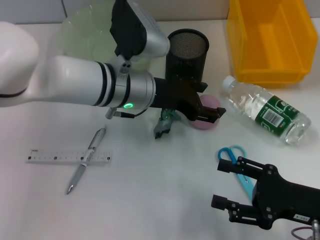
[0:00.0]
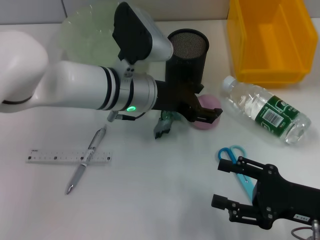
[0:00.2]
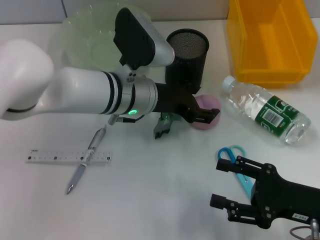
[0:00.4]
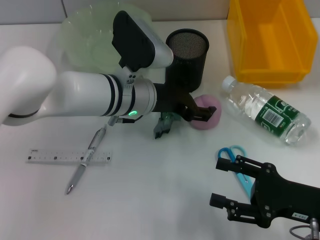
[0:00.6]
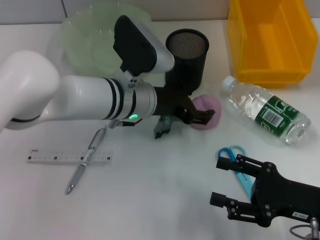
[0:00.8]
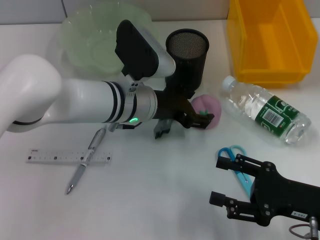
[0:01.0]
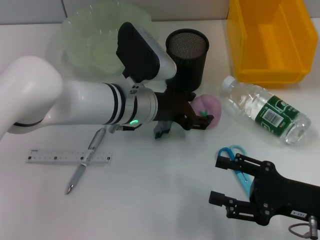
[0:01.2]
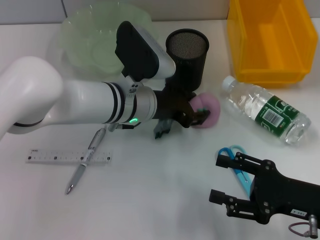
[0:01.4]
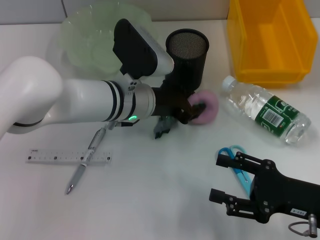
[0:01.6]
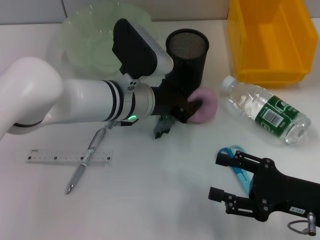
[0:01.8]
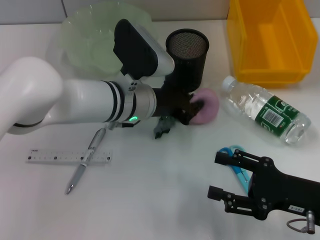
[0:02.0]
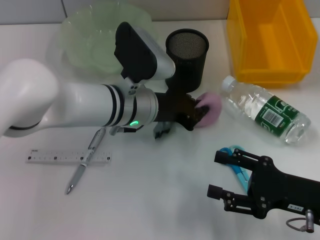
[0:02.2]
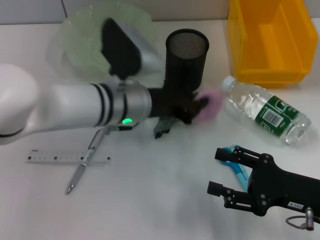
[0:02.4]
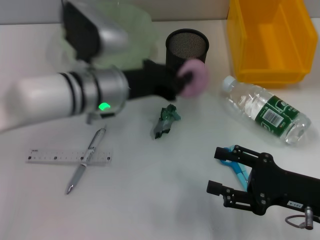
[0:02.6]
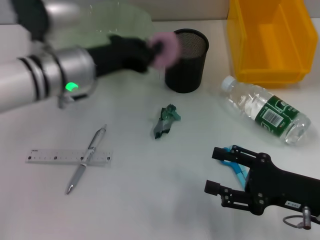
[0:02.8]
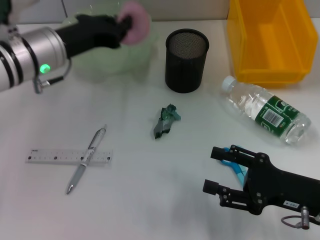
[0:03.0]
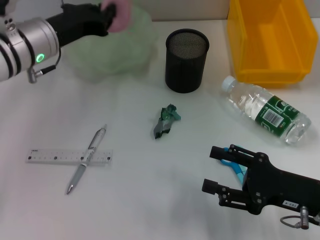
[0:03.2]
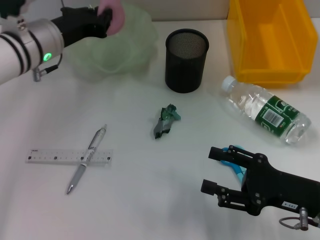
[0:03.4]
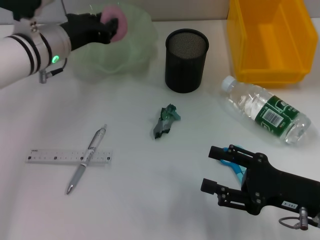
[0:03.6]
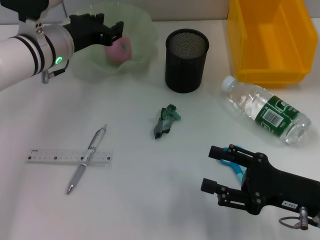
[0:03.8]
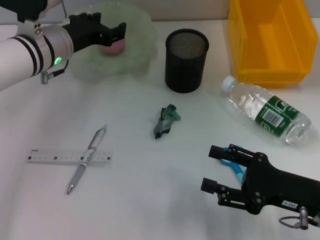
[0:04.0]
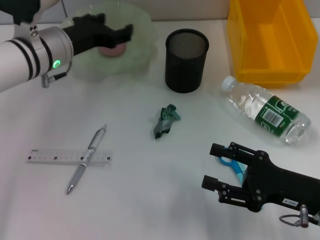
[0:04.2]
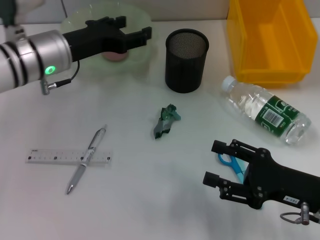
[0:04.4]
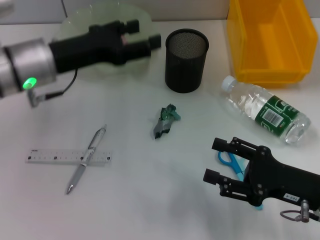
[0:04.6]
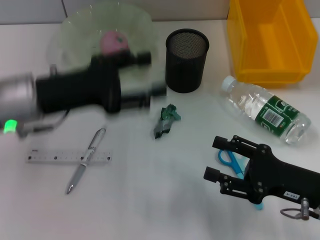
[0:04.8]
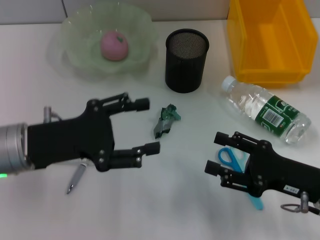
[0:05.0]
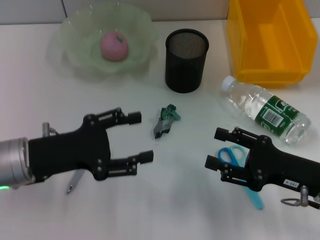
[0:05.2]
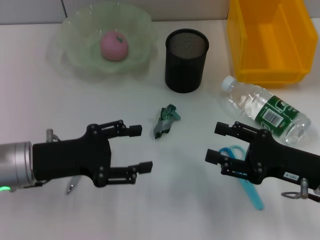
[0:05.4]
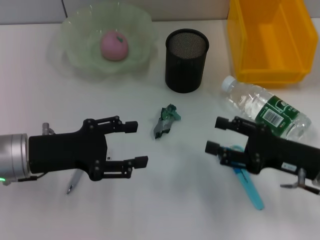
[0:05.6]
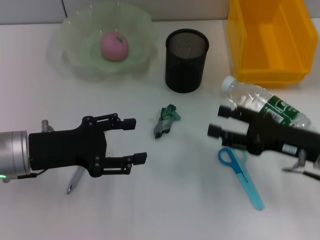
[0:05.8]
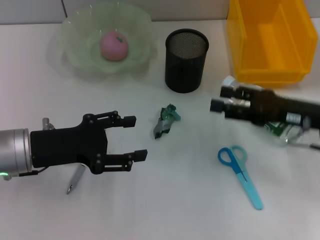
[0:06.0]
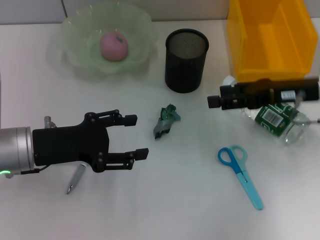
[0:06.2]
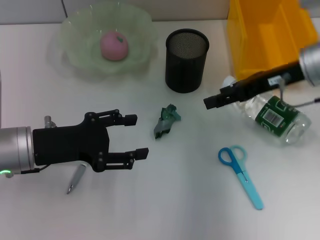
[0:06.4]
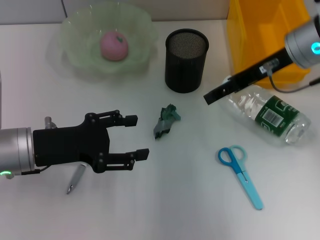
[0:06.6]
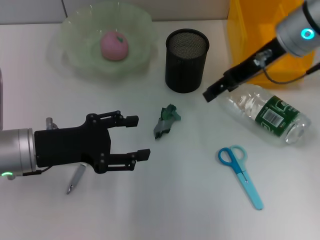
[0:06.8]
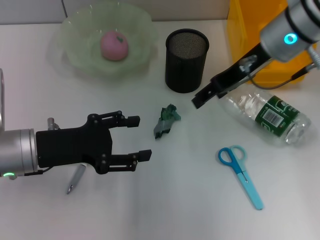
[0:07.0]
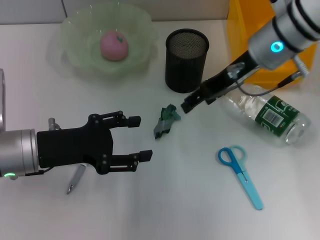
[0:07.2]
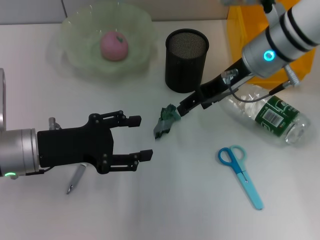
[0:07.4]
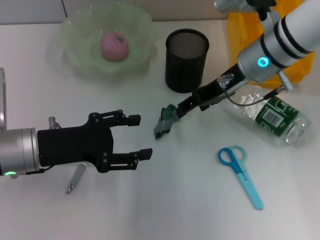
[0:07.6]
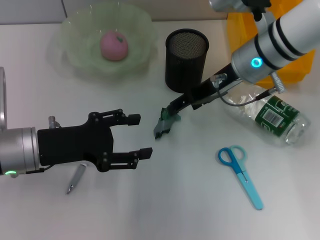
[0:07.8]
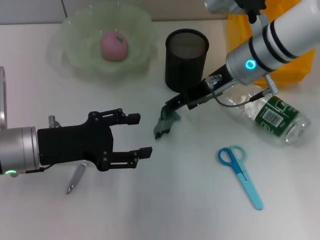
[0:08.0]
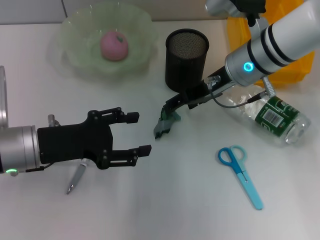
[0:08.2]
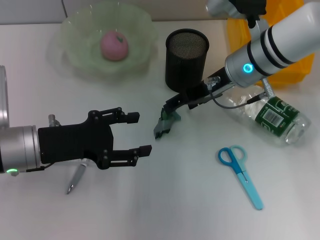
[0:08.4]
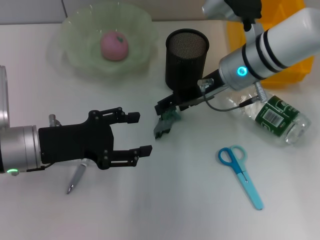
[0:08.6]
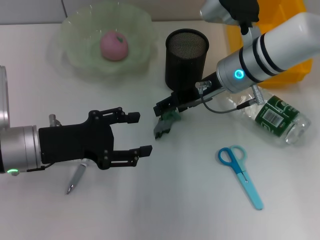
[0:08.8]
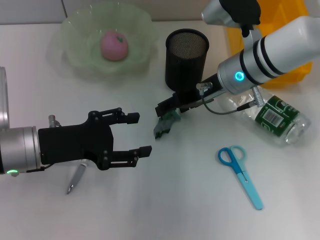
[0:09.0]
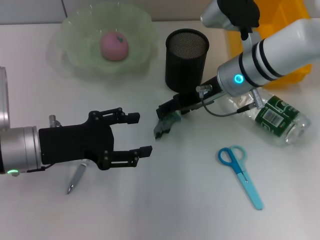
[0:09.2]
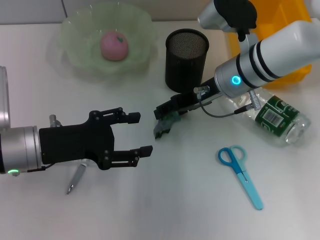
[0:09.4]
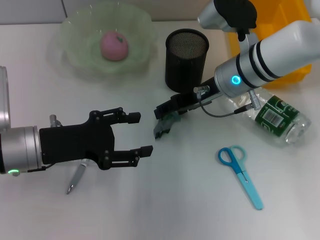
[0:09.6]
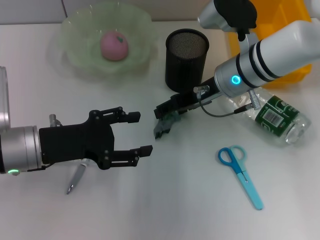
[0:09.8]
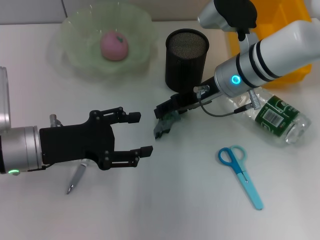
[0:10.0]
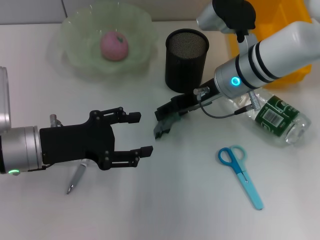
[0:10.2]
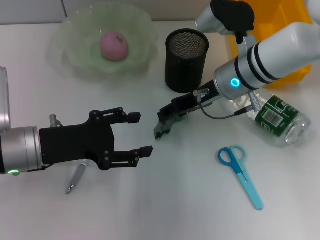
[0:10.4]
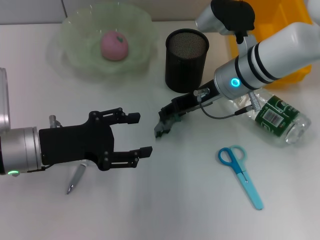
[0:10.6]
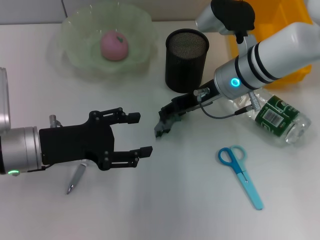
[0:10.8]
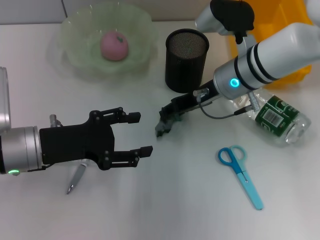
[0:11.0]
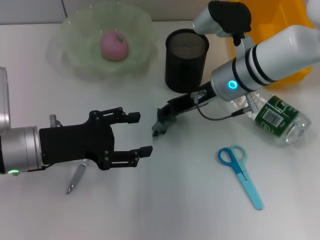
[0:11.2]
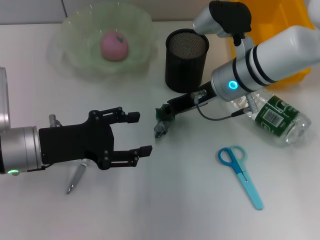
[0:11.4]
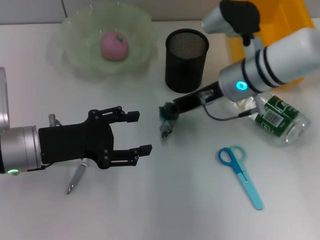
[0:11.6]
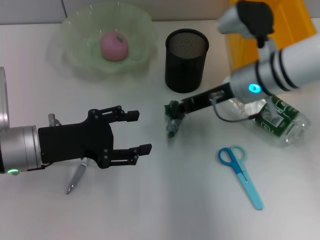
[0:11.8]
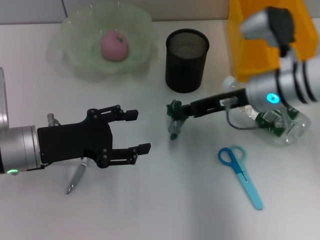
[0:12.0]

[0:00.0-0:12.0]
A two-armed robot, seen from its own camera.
Step, 0:02.0 to 0:03.6: Place the peach into the fruit bowl with the left hand.
Step, 0:03.8 to 0:11.4: Grab the plastic with the right hand.
0:00.0 to 0:01.6: The grippers make only small movements.
0:01.6 to 0:03.0: The left gripper is displaced to the left and upward by about 15 cm, and closes up.
0:03.0 to 0:04.4: The left gripper opens.
0:04.4 to 0:06.0: The left gripper moves backward, some 10 cm, while the right gripper is displaced forward and upward by roughly 10 cm.
0:06.0 to 0:07.6: The right gripper heads to the left, forward and upward, covering roughly 15 cm.
0:07.6 to 0:09.0: The grippers move only a little.
0:09.0 to 0:10.4: Both grippers stay put.
0:10.4 to 0:12.0: The right gripper travels to the right by some 5 cm, and closes.

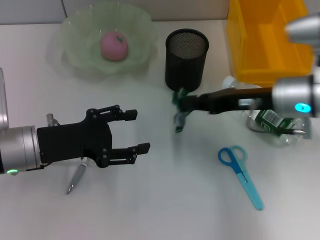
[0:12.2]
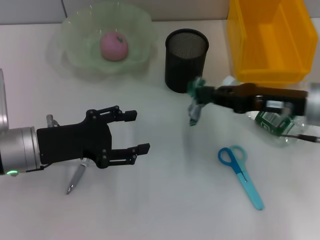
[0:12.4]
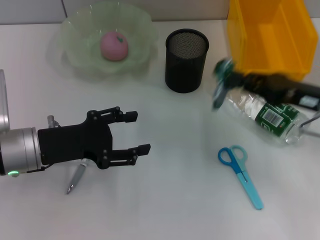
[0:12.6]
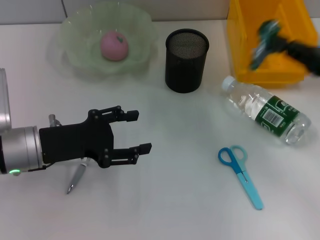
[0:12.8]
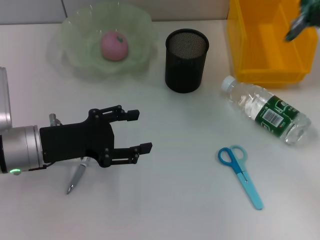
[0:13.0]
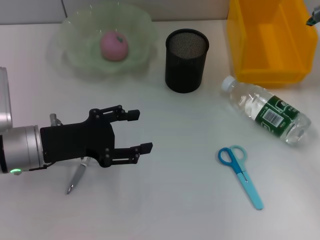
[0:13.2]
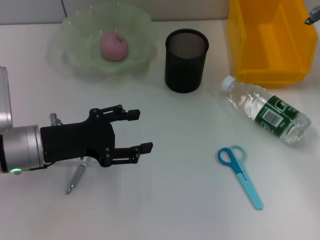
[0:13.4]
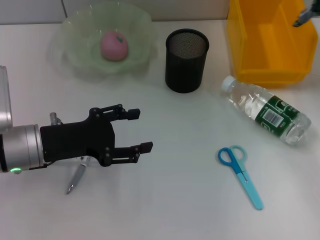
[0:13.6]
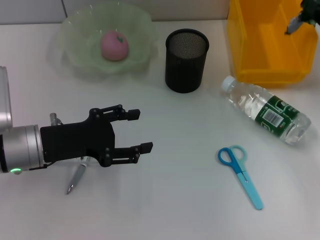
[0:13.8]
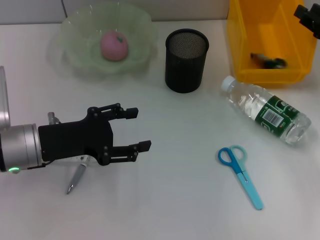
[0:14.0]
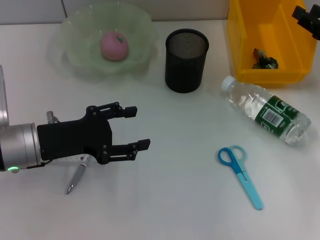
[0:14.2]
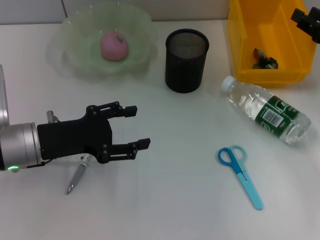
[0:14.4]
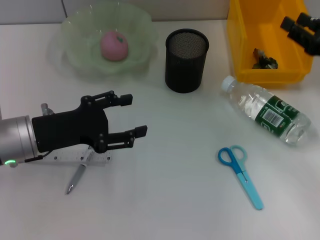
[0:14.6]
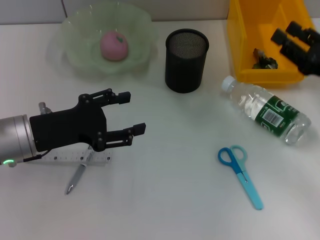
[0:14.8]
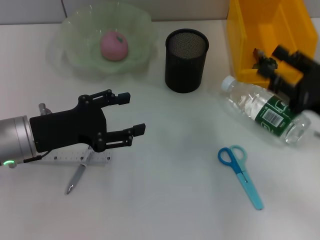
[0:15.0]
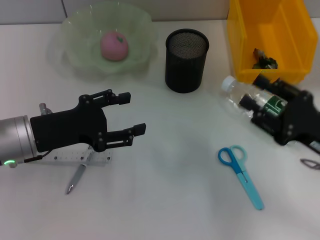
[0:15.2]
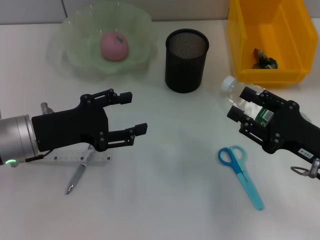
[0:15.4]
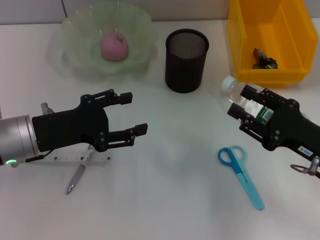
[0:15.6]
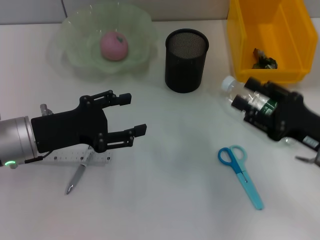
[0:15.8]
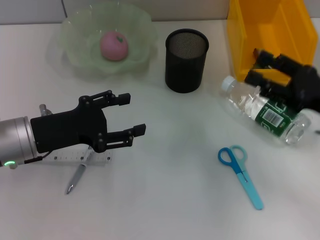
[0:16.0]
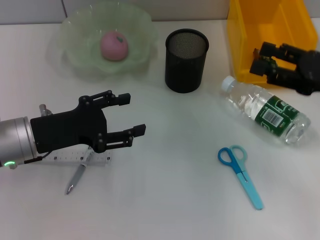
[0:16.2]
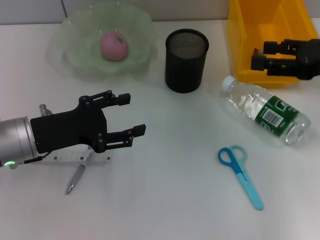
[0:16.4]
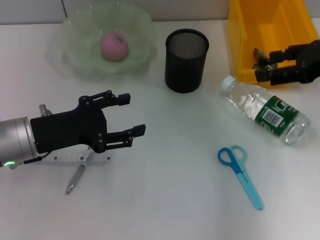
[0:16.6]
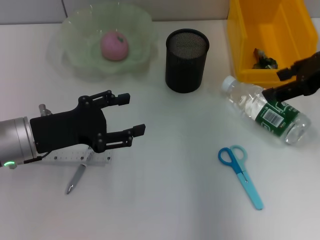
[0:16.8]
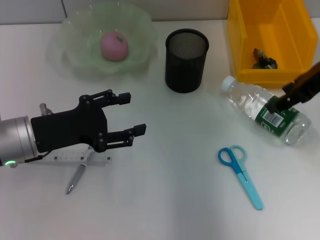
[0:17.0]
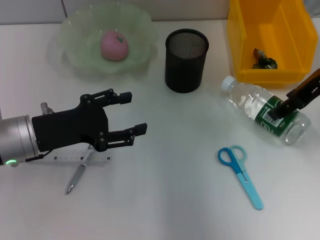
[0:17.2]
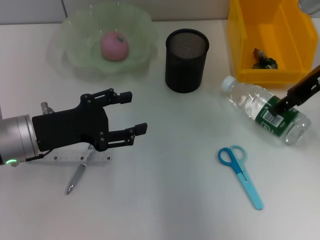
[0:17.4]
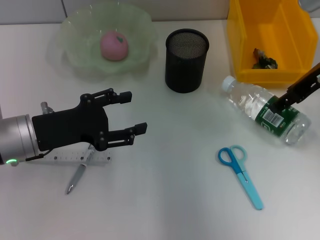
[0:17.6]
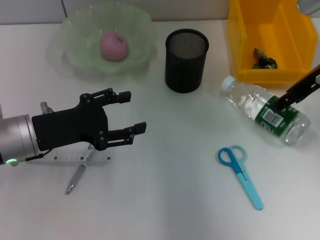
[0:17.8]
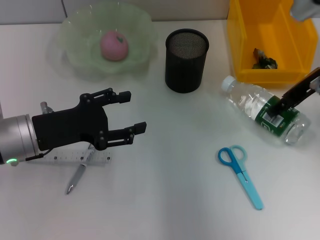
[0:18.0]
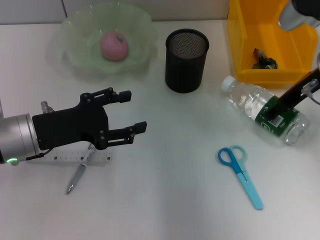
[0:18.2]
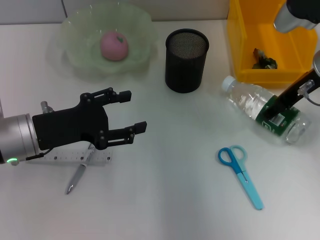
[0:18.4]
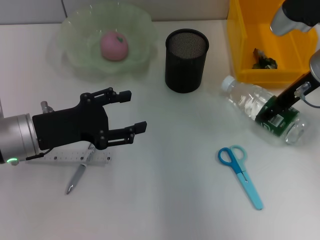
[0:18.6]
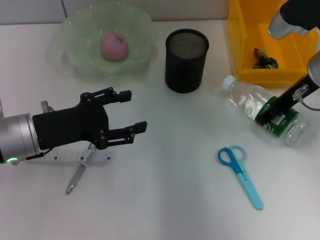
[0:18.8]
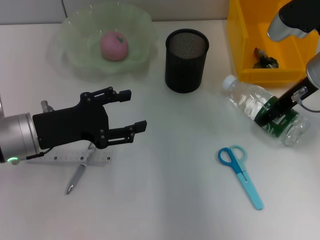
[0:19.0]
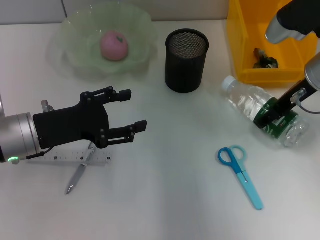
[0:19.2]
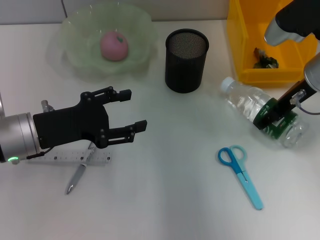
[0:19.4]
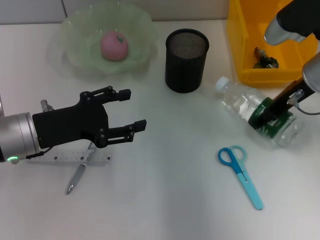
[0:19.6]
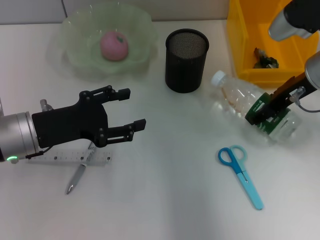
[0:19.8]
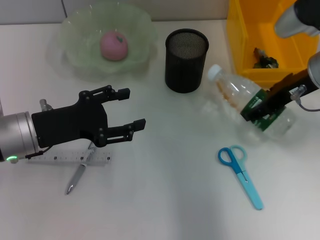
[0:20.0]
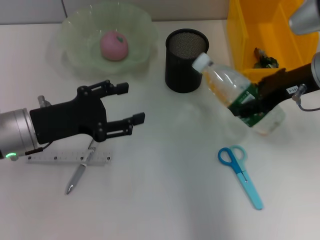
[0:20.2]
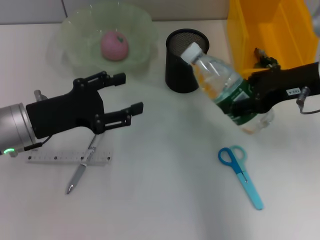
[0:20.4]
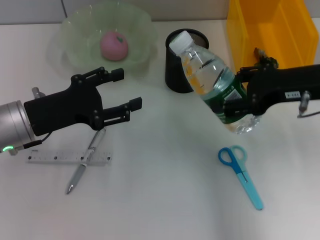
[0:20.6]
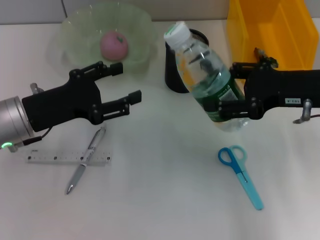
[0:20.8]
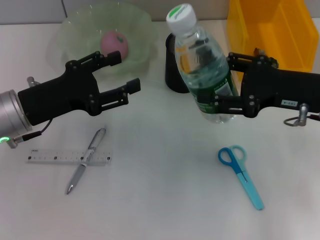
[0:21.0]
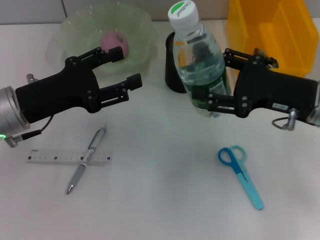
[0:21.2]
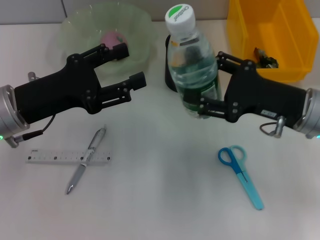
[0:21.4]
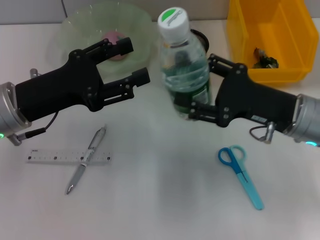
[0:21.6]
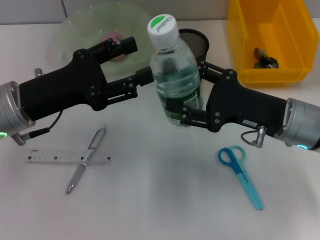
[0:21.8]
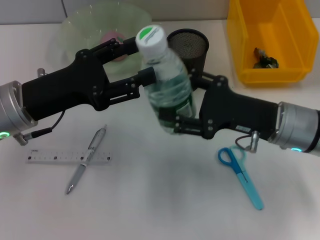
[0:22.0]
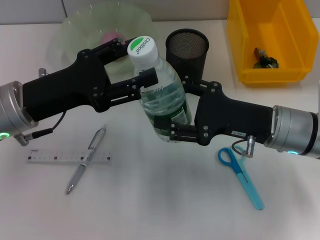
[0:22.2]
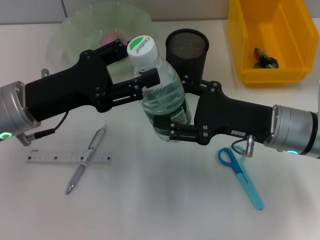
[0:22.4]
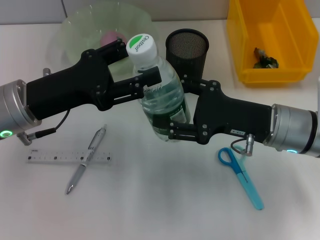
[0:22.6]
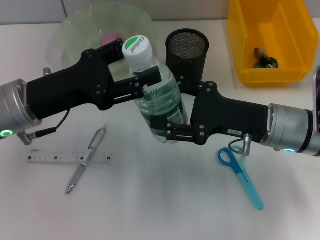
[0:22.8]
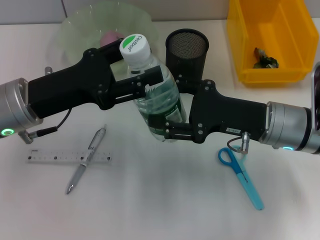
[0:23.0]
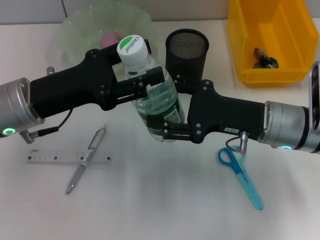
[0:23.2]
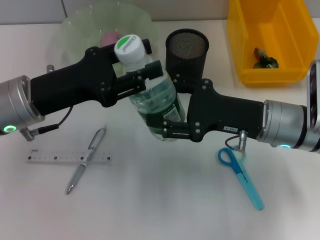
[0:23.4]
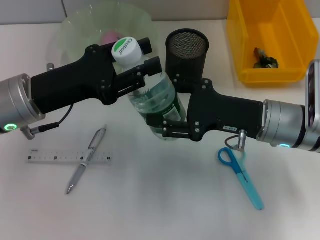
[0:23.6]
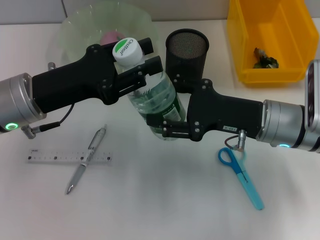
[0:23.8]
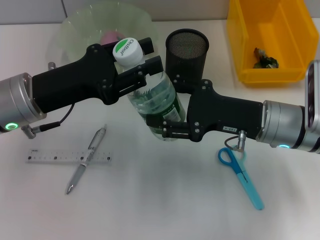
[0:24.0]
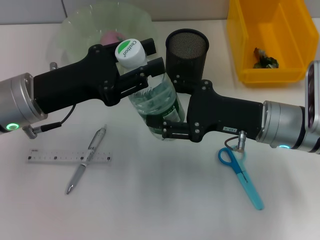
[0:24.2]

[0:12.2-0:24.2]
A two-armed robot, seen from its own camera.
Step, 0:12.2 to 0:14.2: Place the plastic into the trash can with the right hand.
Step, 0:14.6 to 0:19.2: Grab the water bottle with the right hand.
0:12.2 to 0:13.8: The right gripper moves to the right, approximately 15 cm.
0:13.8 to 0:15.2: The right gripper shifts some 15 cm backward, to the left and downward, and opens.
0:15.2 to 0:16.6: The right gripper heads upward and forward, covering approximately 20 cm.
0:16.6 to 0:18.2: The right gripper travels to the left by about 5 cm.
0:18.2 to 0:19.8: The grippers move only a little.
0:19.8 to 0:21.2: The right gripper moves backward, roughly 5 cm.
0:21.2 to 0:22.6: The right gripper ends up some 5 cm from where it was.
0:22.6 to 0:24.2: The left gripper closes its fingers.
